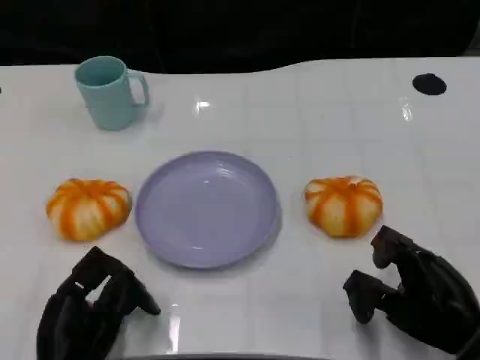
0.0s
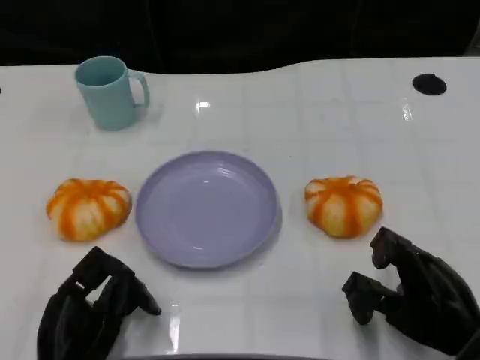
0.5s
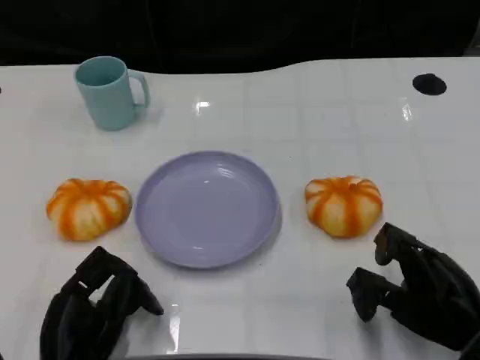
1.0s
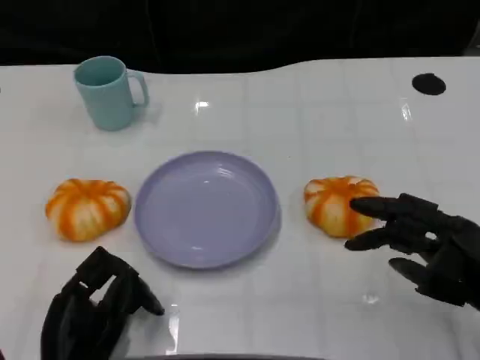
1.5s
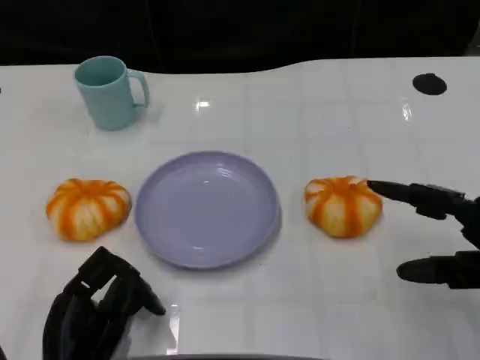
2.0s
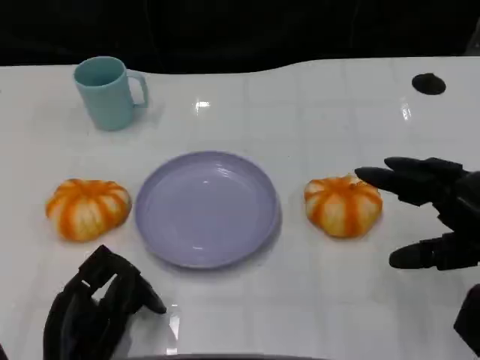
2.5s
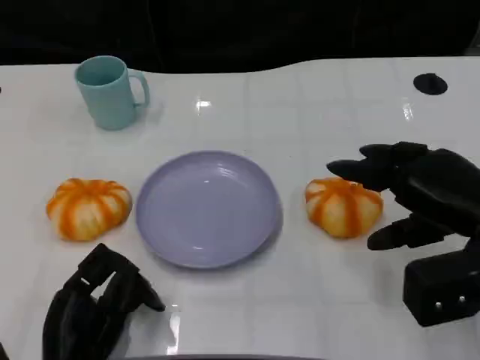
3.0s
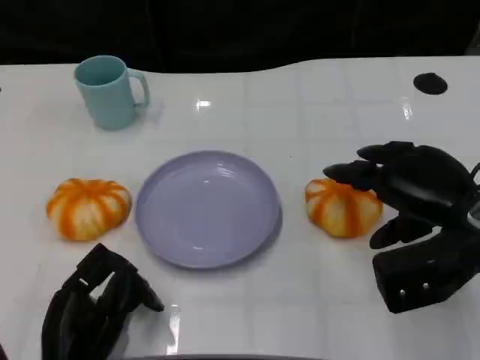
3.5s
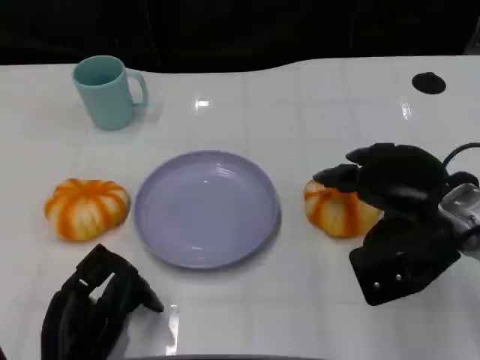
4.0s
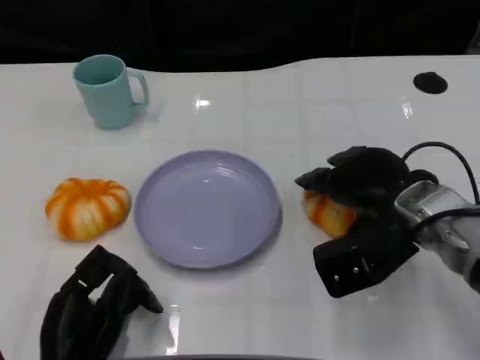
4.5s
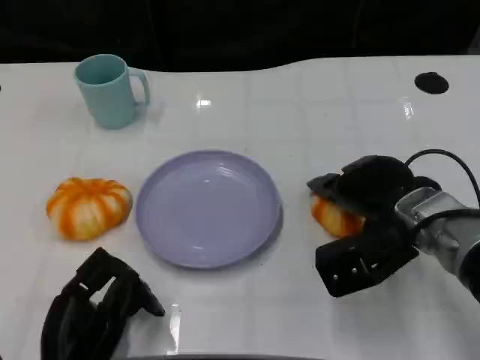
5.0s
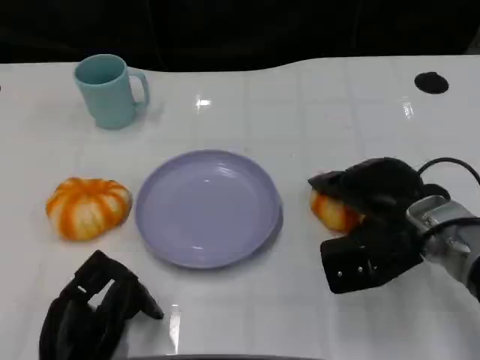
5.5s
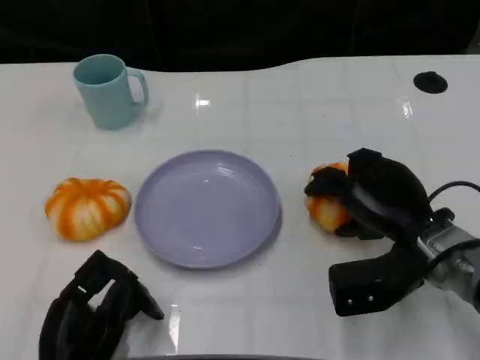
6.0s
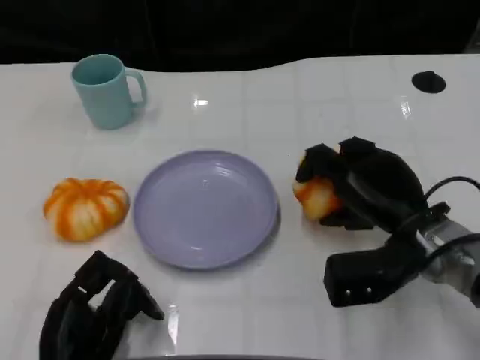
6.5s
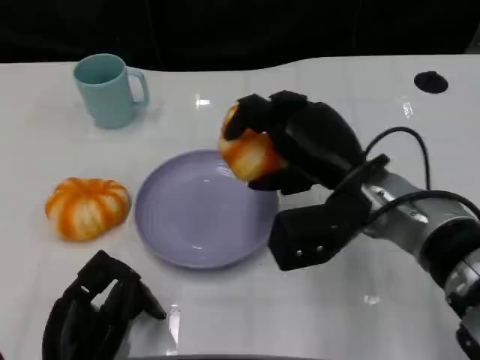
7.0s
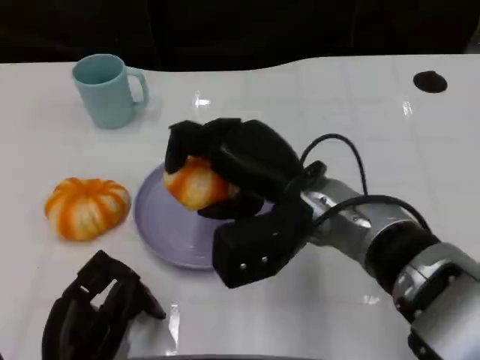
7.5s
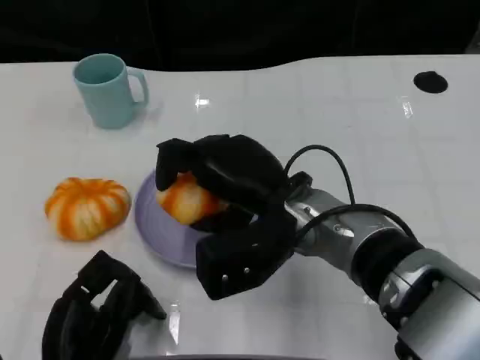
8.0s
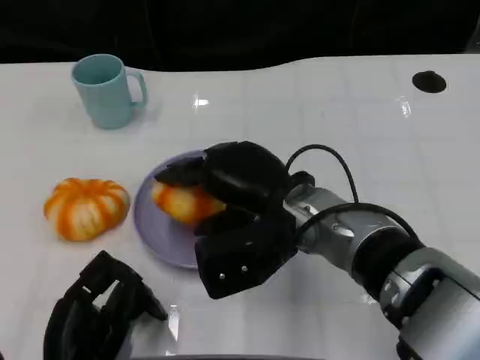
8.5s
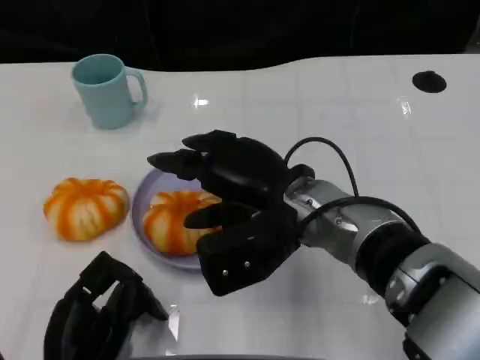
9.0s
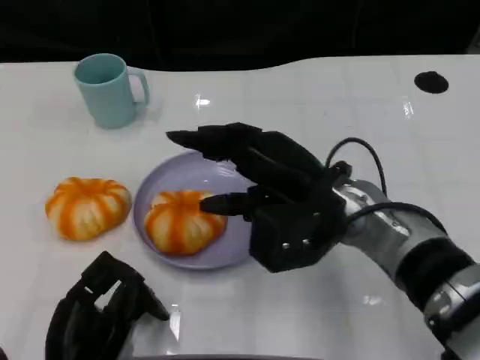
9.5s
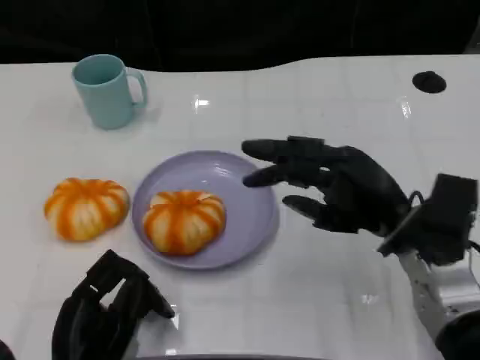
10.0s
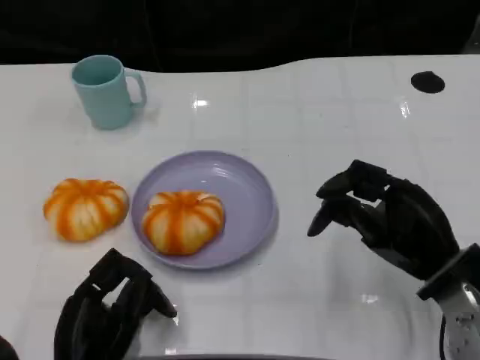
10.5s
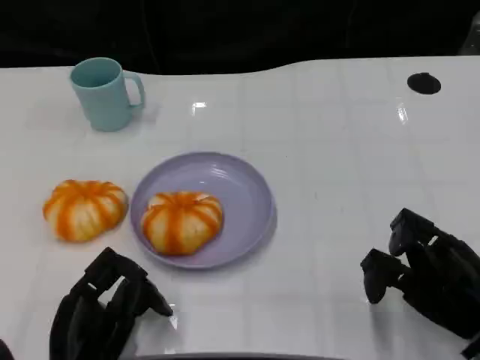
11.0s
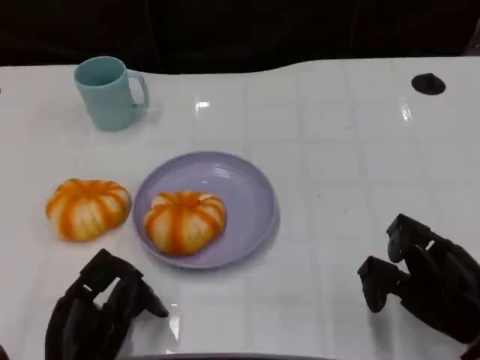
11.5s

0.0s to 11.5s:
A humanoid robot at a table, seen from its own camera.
Task of the whole recording: Grasp the bread from the table and place it into the plate.
0.0s to 2.0s: The right hand goes roughly 10 cm upward.
2.0s to 4.0s: The right hand goes about 10 cm to the left and forward.
4.0s to 6.0s: The right hand goes roughly 5 cm downward.
6.0s to 7.5s: The right hand moves to the left and upward, about 15 cm.
7.5s to 9.5s: The hands stay close to where they were, moving slightly.
9.5s to 11.5s: The right hand moves to the right, downward and backward, approximately 20 cm.

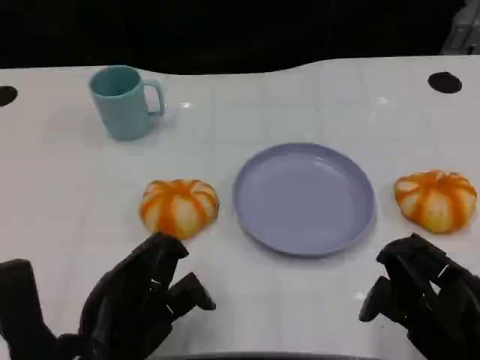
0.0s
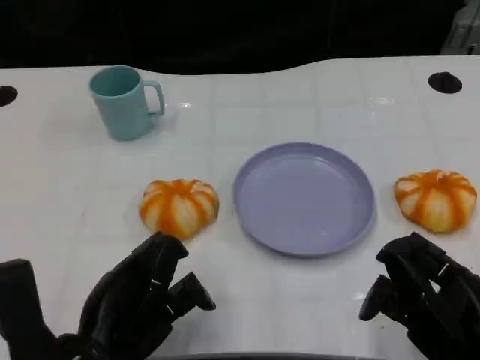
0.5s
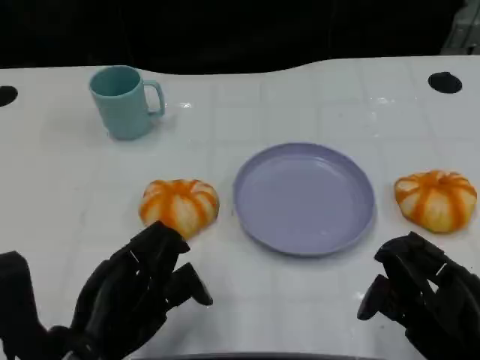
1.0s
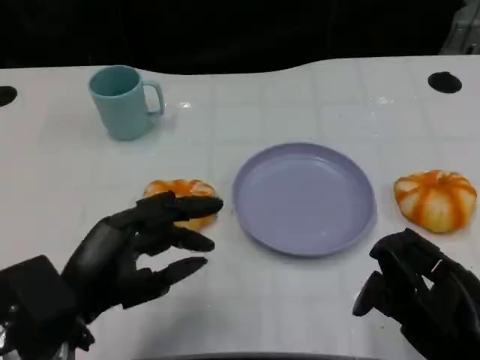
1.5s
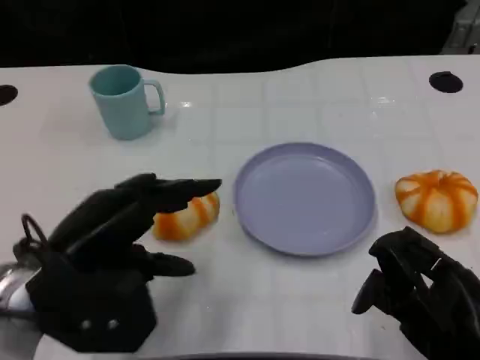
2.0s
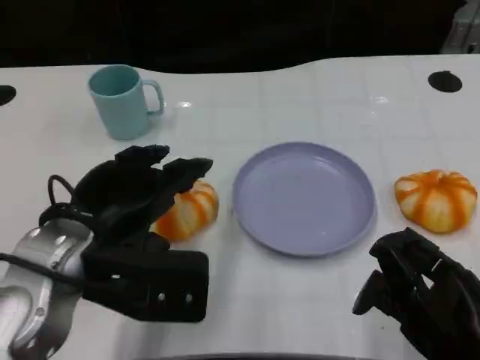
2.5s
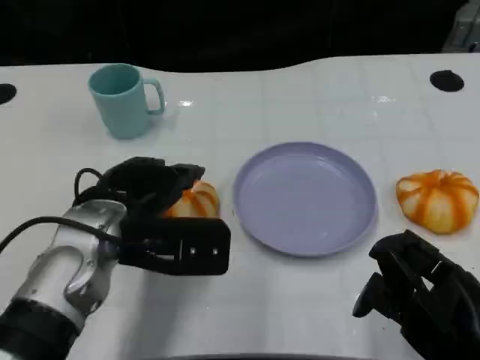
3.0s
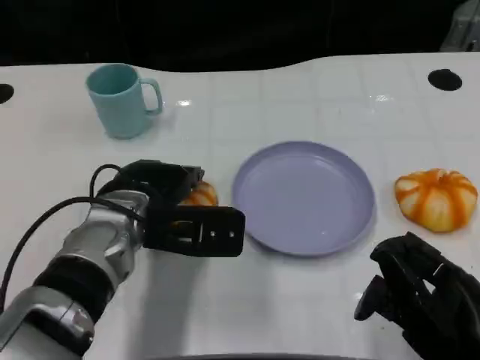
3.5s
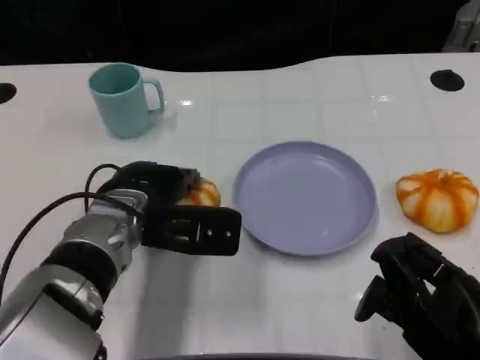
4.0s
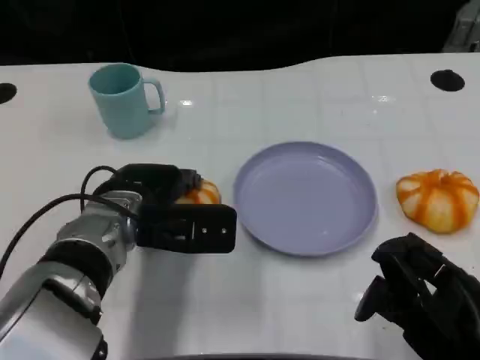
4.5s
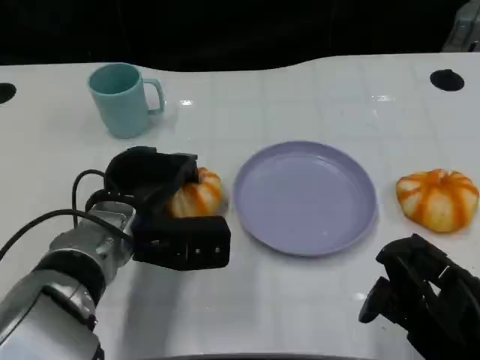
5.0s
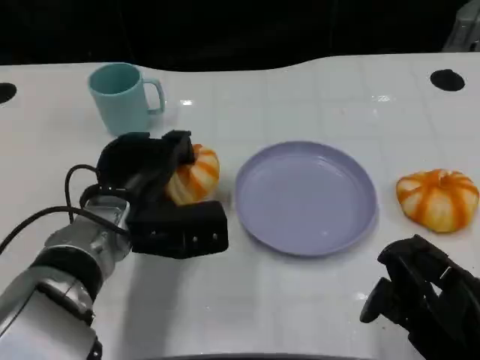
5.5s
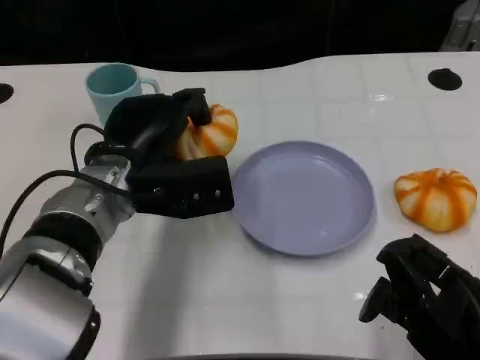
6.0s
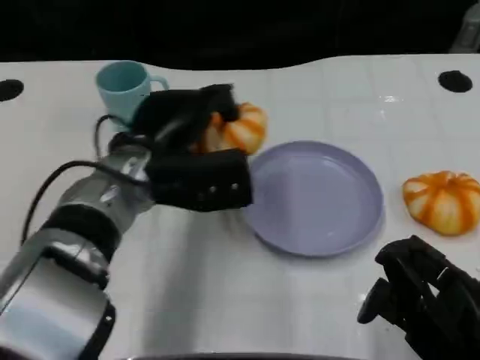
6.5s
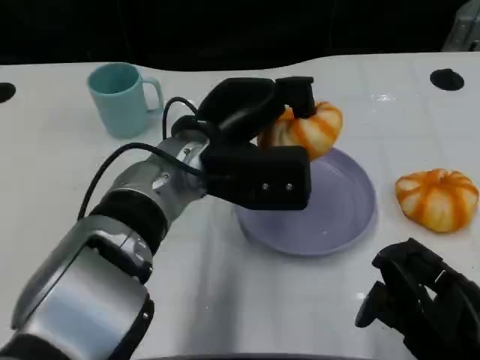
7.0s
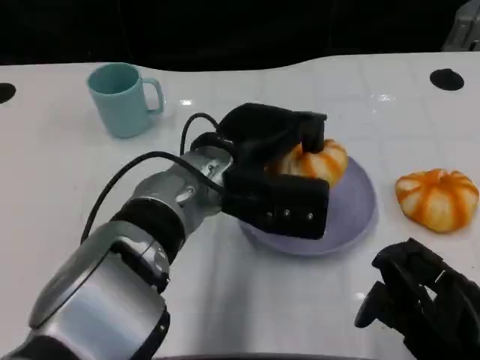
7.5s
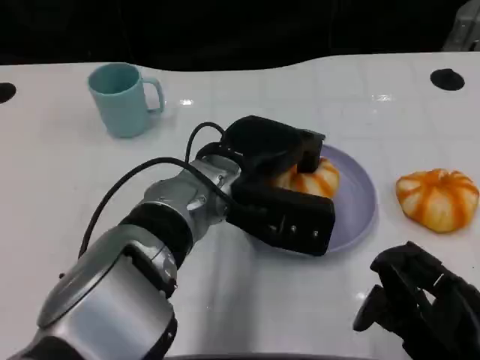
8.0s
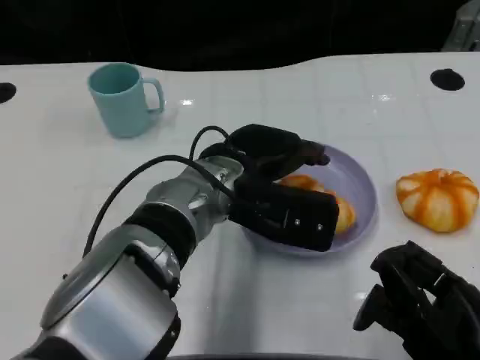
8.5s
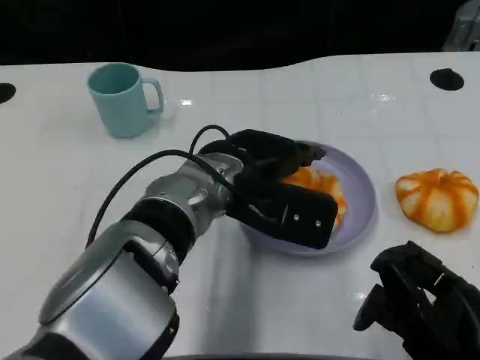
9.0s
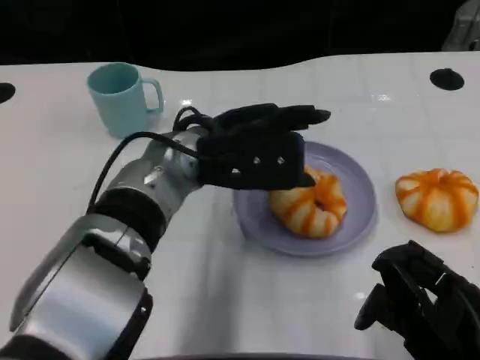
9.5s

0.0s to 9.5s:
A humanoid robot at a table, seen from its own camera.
Task of the whole recording: Grasp the bread from the table and place it into the plate.
0.0s to 2.0s: The left hand moves upward and forward, some 10 cm.
2.0s to 4.0s: The left hand goes about 15 cm forward, to the right and downward.
5.5s to 7.5s: The left hand is displaced to the right and upward by some 10 cm.

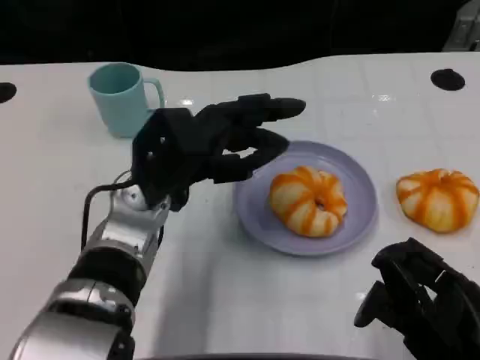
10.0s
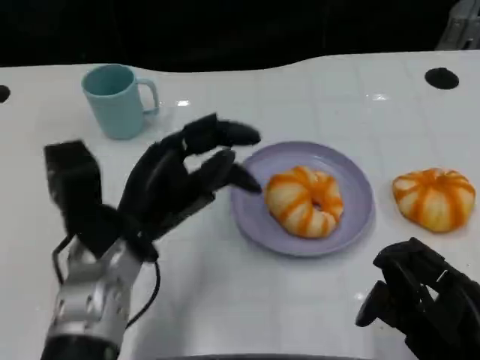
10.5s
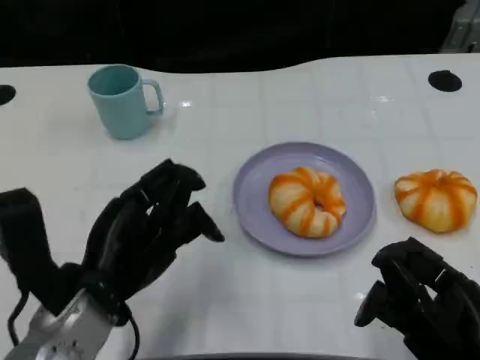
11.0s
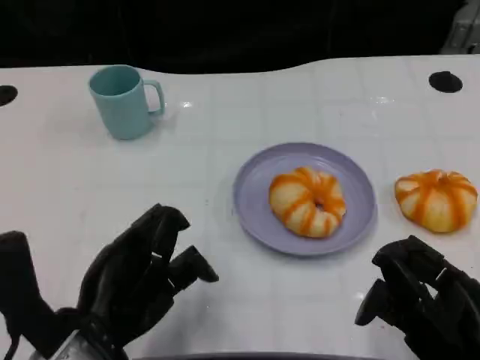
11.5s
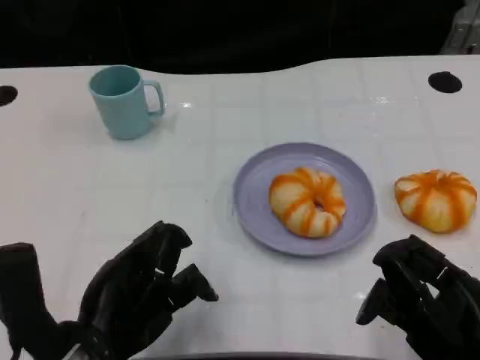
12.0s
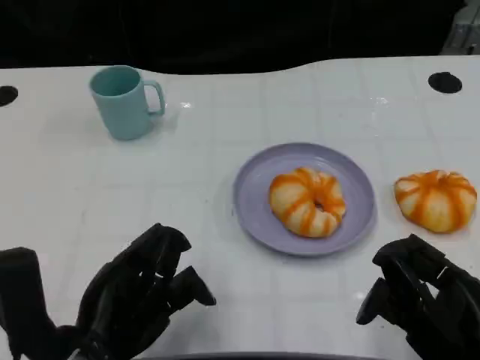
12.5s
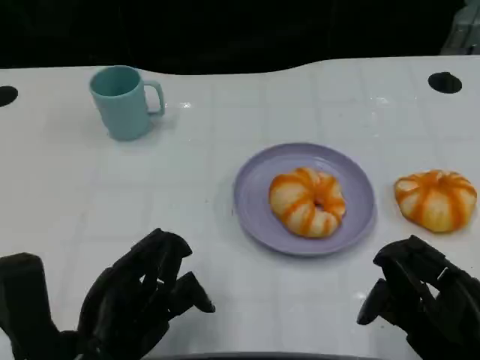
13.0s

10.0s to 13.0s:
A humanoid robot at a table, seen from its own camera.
Task of the whole recording: Grasp the bread from the table and place it into the plate.
10.0s to 11.5s: The left hand travels backward and to the left by some 15 cm.
11.5s to 13.0s: The hands move only a little.

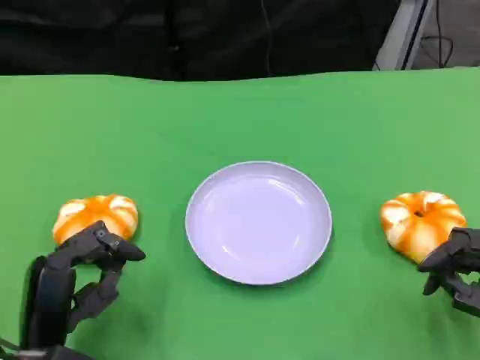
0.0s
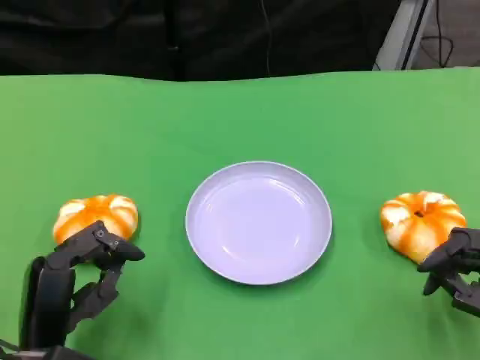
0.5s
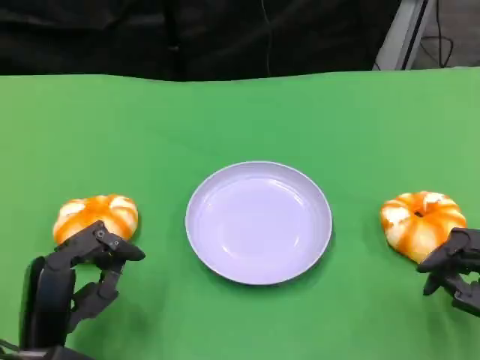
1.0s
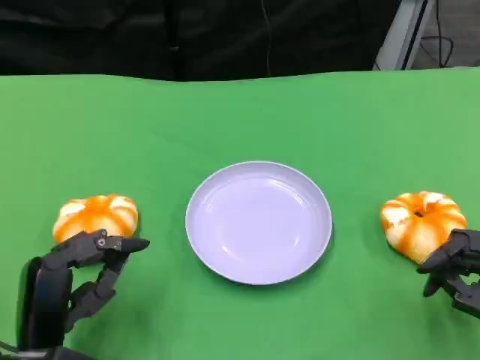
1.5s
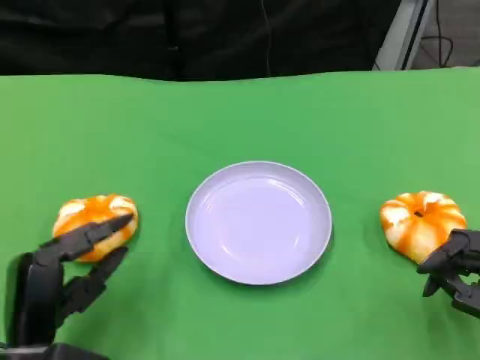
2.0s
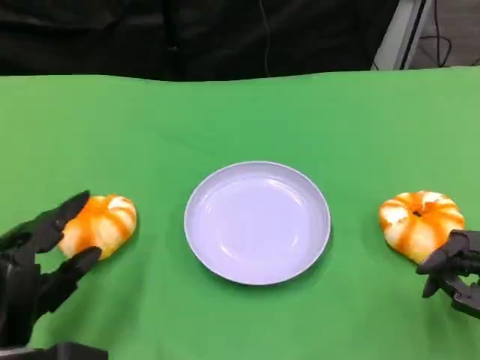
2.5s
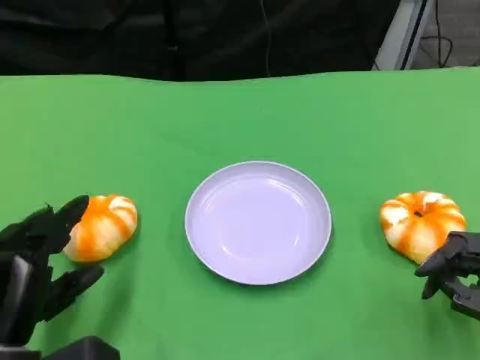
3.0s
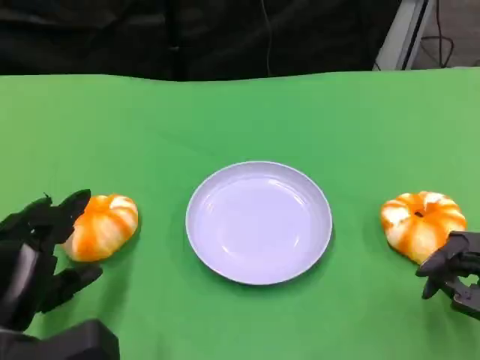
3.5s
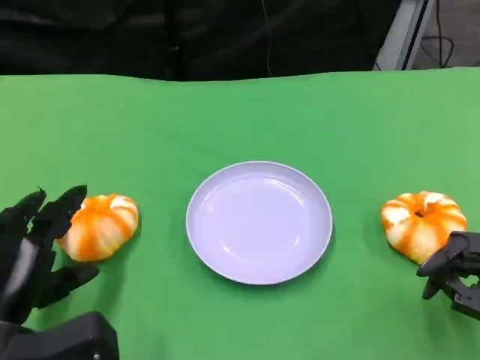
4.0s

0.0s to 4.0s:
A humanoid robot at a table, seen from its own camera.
Task of the whole recording: Grasp the bread from the table and place it into the plate.
0.0s to 2.0s: The hands stay close to where they were, moving slightly.
